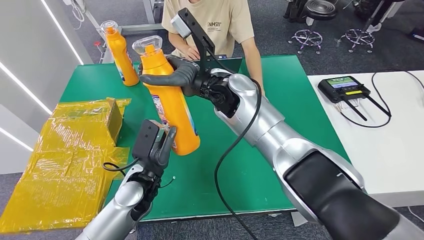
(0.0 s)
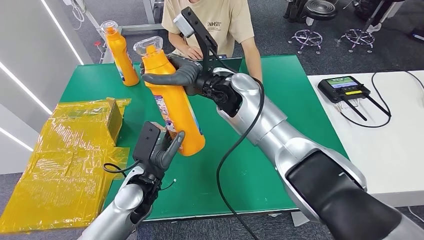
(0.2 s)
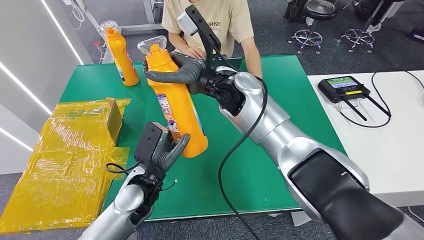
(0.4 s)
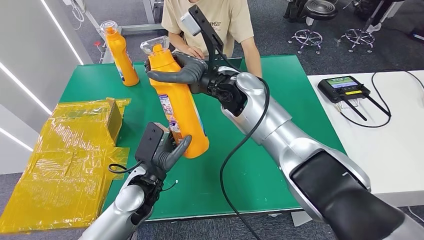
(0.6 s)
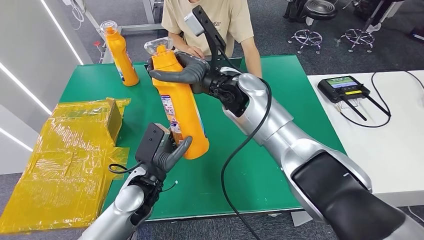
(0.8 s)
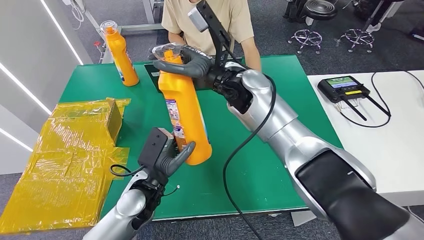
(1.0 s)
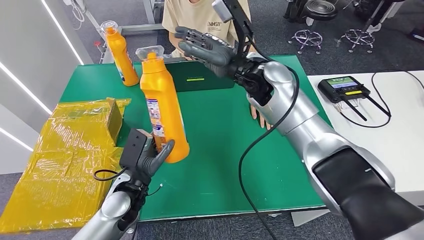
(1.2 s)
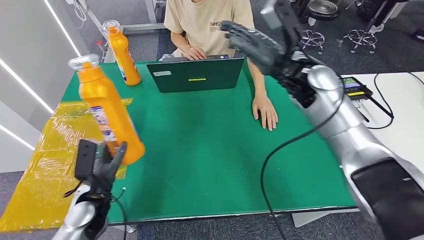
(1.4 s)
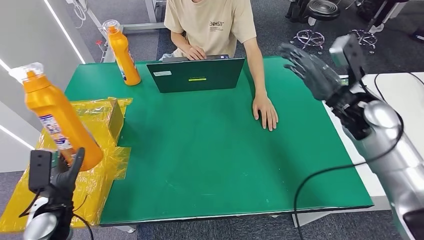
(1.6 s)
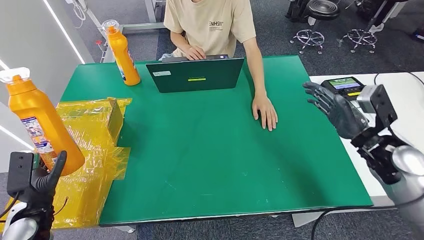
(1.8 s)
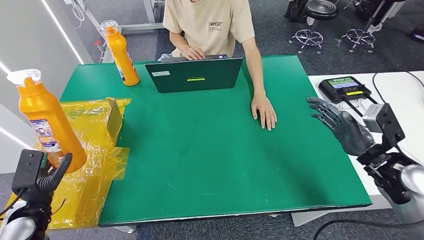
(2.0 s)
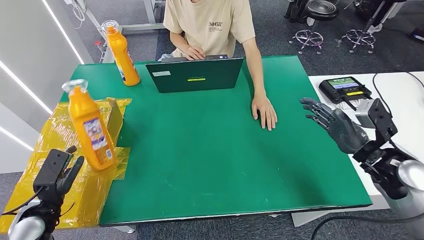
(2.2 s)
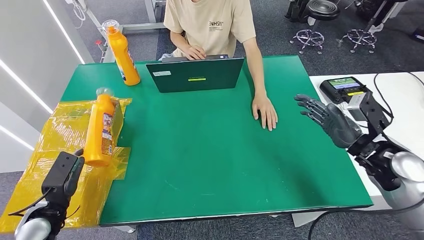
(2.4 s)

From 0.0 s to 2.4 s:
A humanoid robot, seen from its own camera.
Step, from 0.0 s to 2.4 s: Turn the bottle to the front side.
